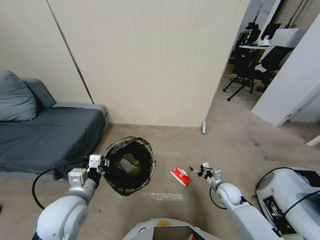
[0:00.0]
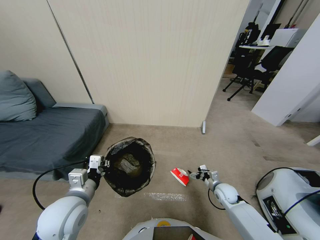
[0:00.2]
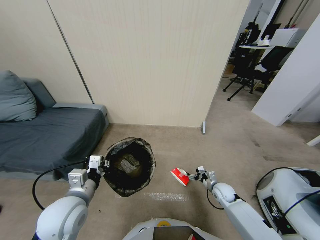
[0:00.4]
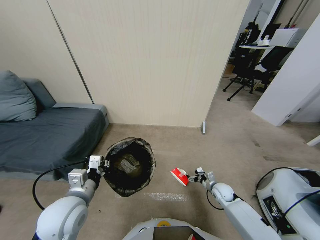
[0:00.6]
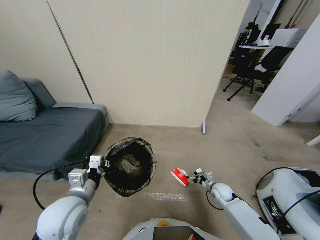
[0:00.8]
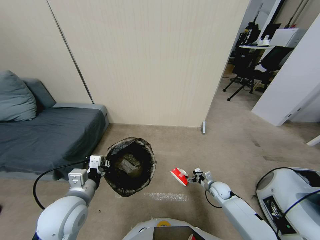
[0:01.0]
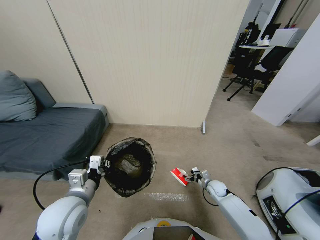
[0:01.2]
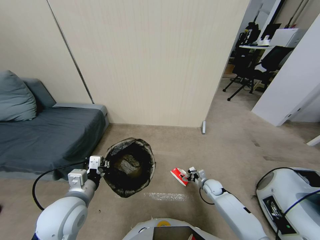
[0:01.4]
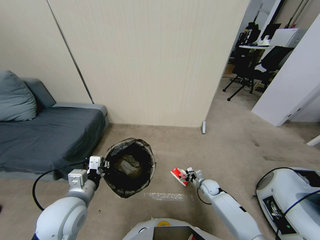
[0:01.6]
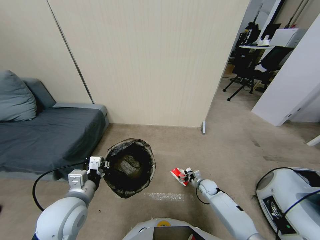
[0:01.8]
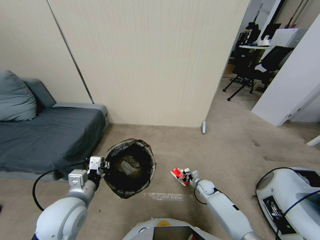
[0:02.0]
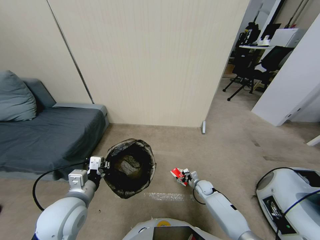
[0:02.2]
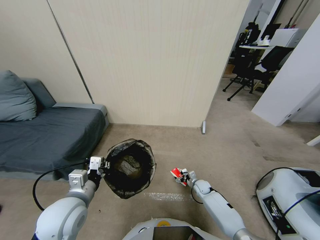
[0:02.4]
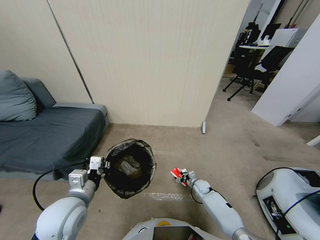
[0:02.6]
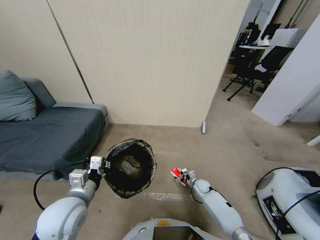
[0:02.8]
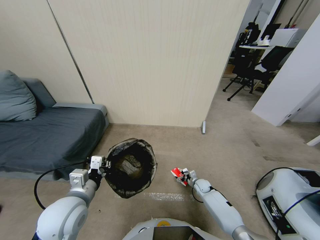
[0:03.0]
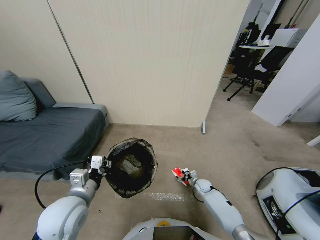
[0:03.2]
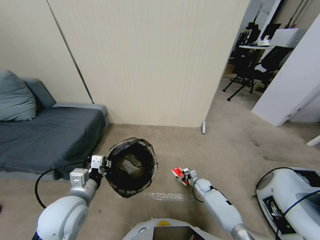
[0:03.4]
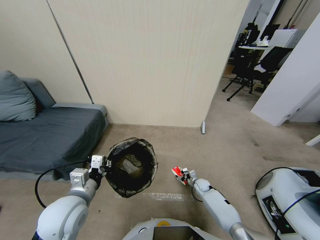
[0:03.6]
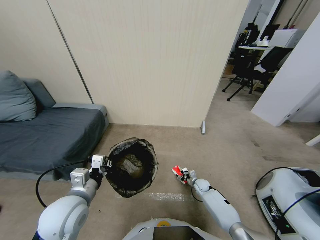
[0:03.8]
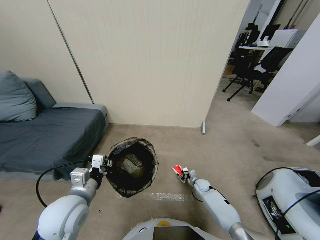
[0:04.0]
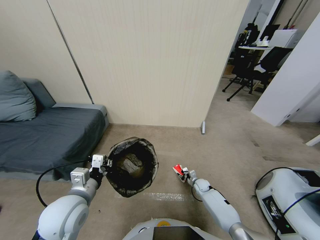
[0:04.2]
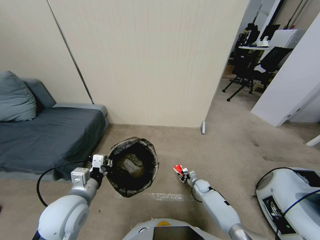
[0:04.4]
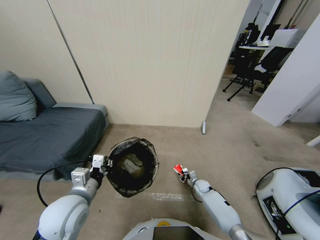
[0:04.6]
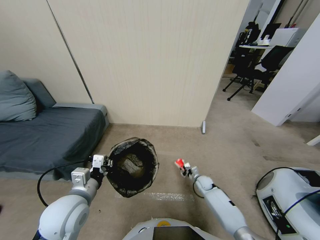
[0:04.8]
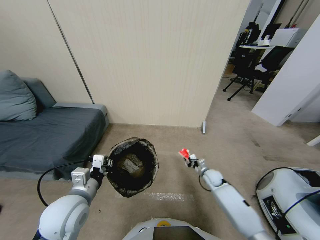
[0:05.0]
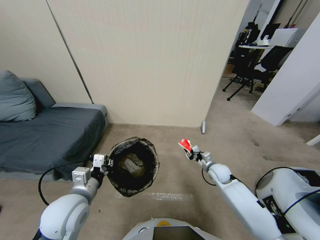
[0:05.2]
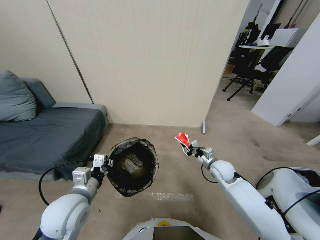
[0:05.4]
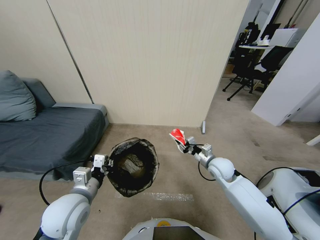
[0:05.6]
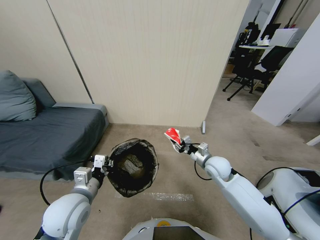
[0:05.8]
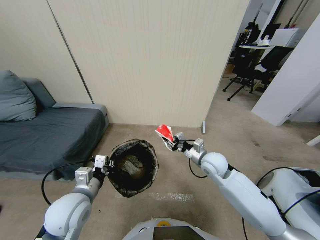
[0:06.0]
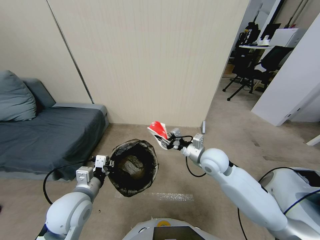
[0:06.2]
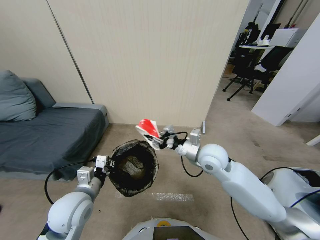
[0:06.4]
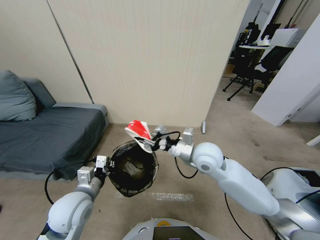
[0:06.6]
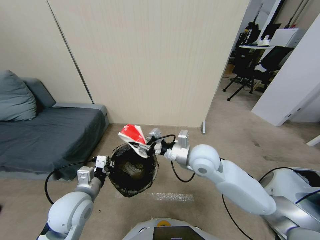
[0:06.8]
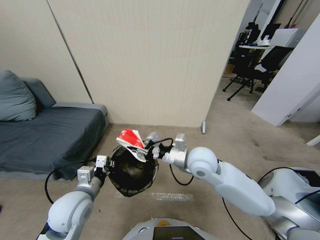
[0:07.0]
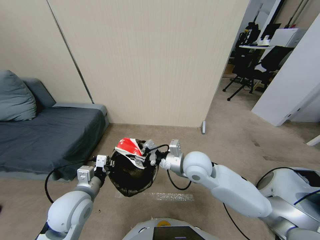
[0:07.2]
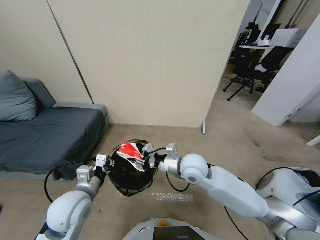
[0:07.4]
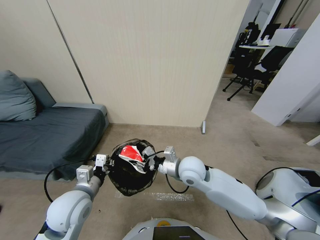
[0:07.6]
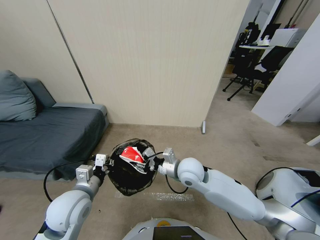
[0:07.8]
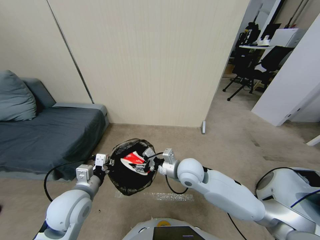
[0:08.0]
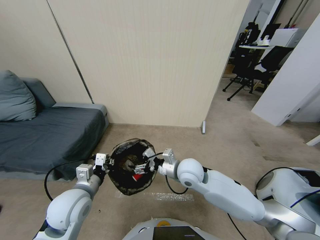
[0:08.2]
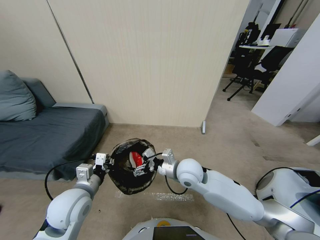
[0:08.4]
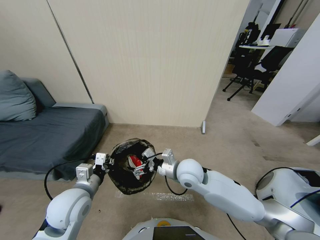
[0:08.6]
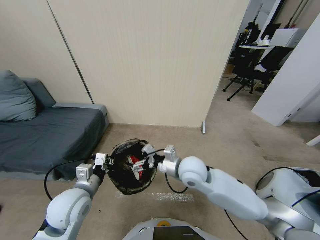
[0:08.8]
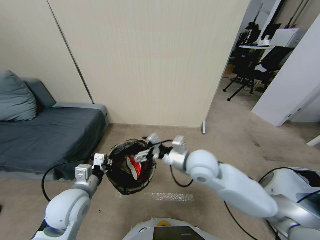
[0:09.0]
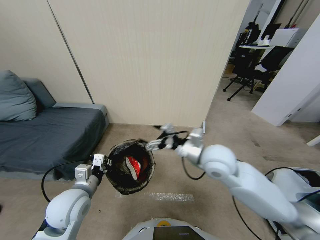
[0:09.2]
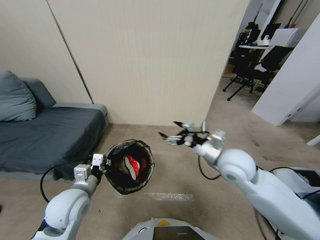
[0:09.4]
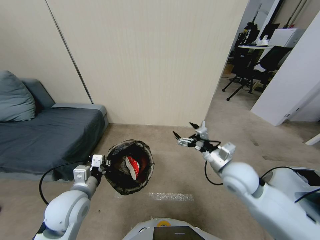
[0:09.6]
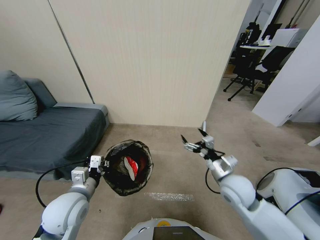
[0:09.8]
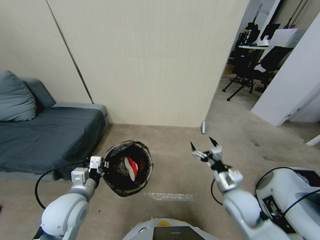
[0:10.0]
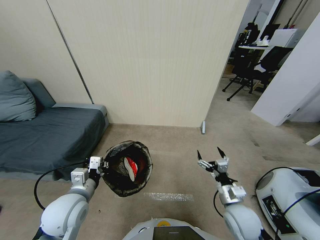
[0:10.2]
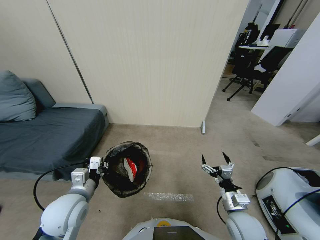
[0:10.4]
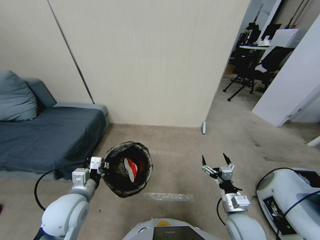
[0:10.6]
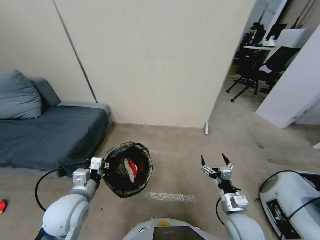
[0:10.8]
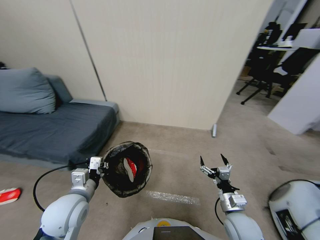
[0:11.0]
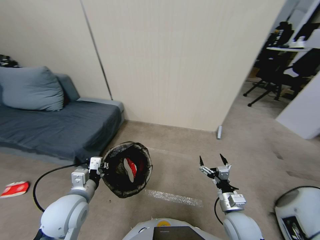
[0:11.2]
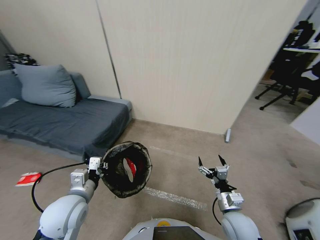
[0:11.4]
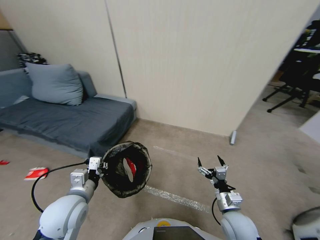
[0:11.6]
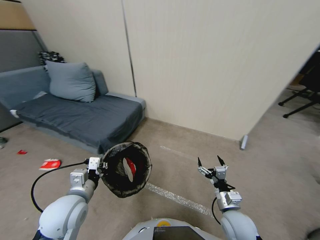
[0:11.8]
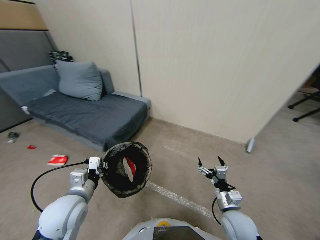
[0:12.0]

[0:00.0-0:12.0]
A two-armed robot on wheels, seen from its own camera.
Task of the whole recording: Pick up the trash bin, then pick up the garbage from the floor and place it into the trash bin.
0:00.0 to 0:01.6: The right gripper is displaced downward and forward by some 10 cm.
0:01.6 to 0:03.0: The grippers move only a little.
0:03.0 to 0:04.4: The right gripper closes up.
0:04.4 to 0:06.0: The right gripper shifts about 35 cm upward.
0:06.0 to 0:07.6: The right gripper travels to the left by roughly 10 cm.
0:07.6 to 0:09.0: The right gripper travels upward by roughly 10 cm, and opens.
0:09.0 to 0:10.4: The right gripper travels downward, backward and to the right by approximately 25 cm.

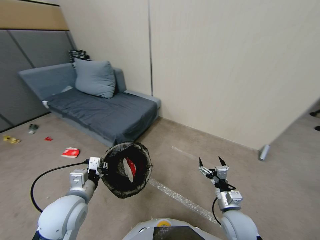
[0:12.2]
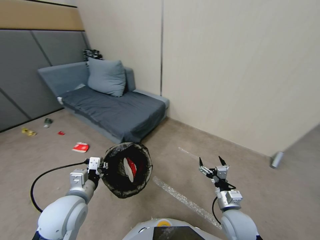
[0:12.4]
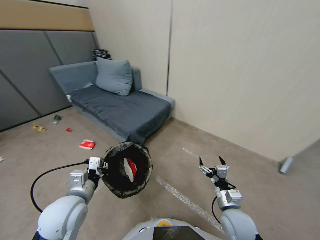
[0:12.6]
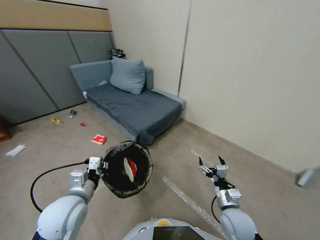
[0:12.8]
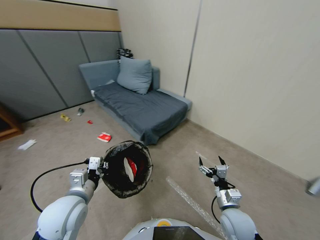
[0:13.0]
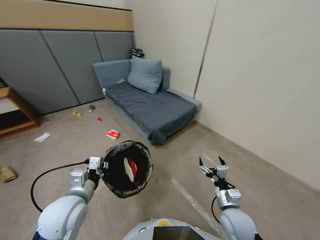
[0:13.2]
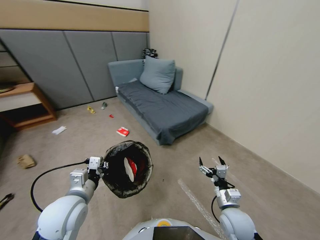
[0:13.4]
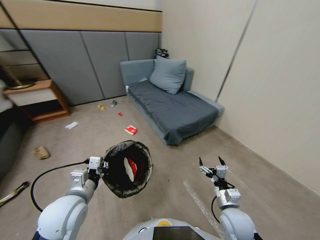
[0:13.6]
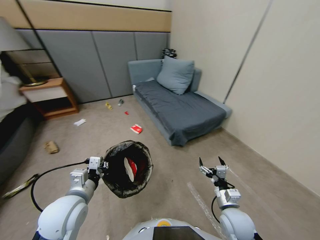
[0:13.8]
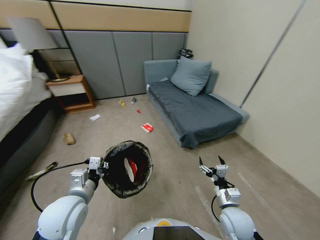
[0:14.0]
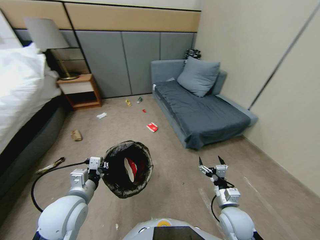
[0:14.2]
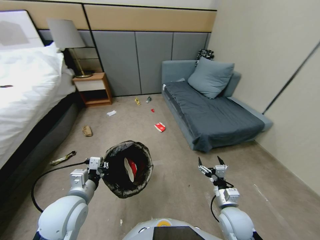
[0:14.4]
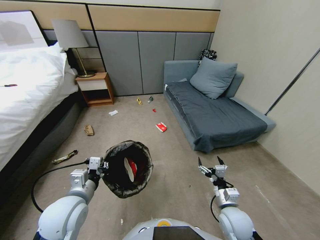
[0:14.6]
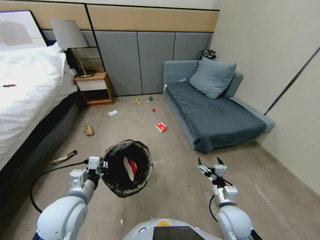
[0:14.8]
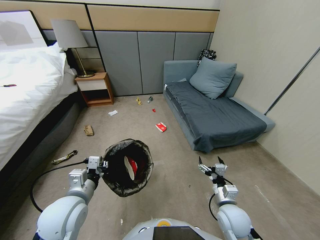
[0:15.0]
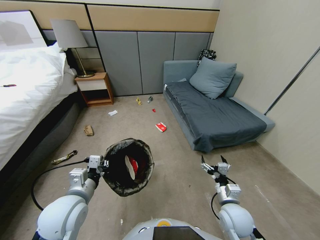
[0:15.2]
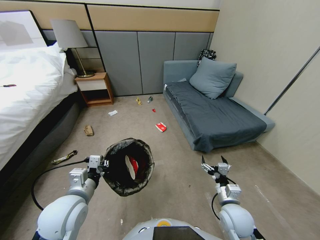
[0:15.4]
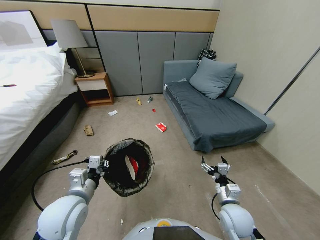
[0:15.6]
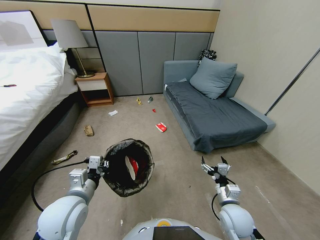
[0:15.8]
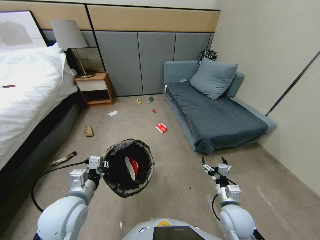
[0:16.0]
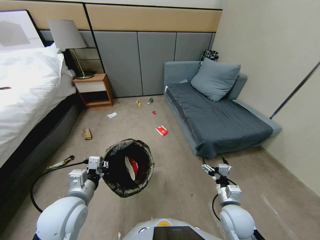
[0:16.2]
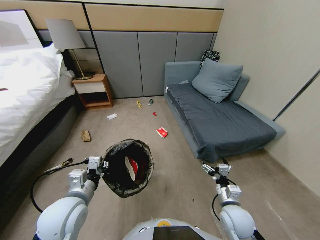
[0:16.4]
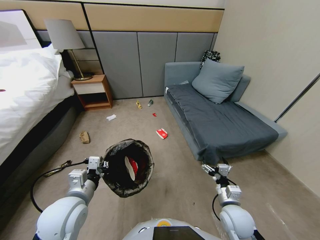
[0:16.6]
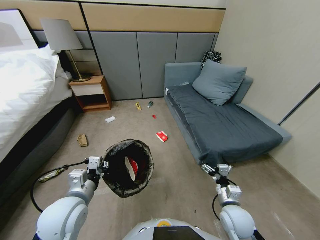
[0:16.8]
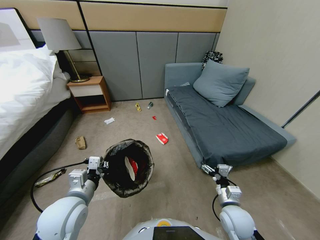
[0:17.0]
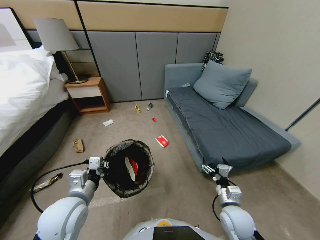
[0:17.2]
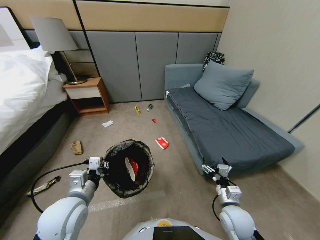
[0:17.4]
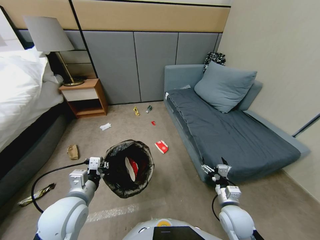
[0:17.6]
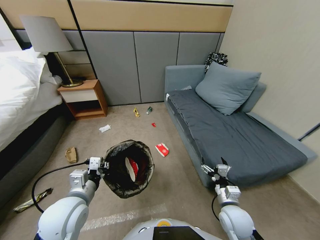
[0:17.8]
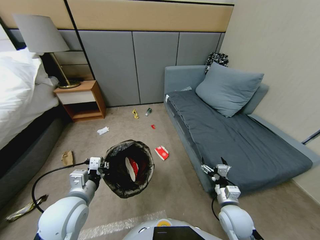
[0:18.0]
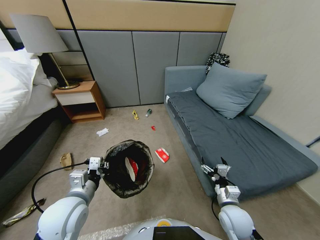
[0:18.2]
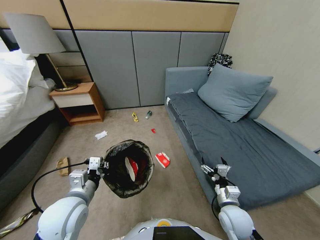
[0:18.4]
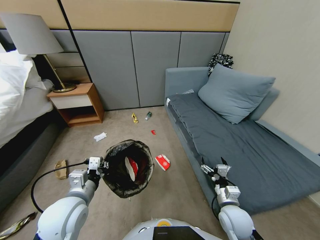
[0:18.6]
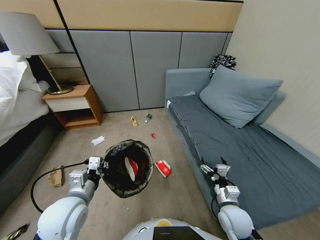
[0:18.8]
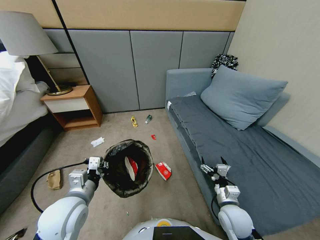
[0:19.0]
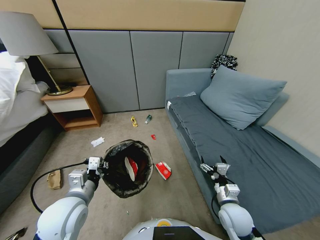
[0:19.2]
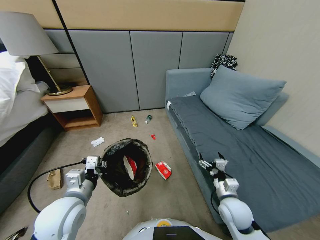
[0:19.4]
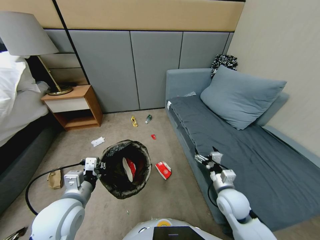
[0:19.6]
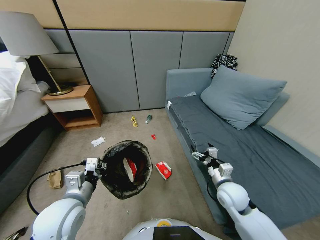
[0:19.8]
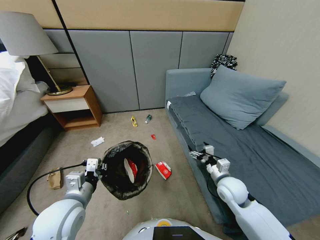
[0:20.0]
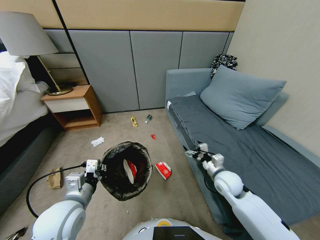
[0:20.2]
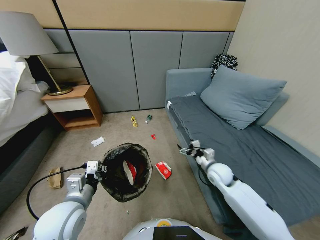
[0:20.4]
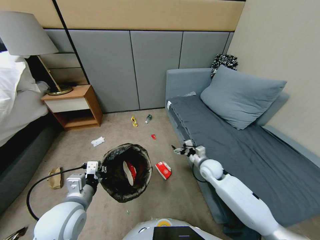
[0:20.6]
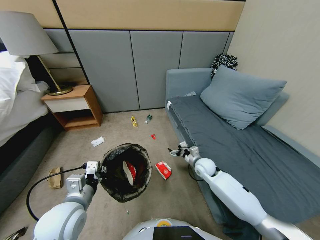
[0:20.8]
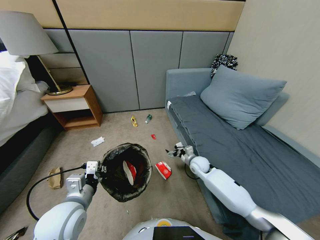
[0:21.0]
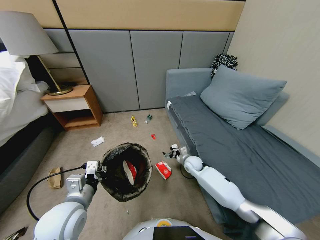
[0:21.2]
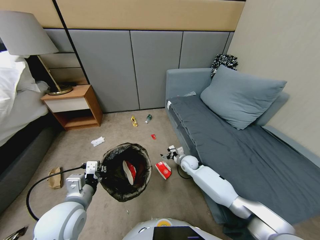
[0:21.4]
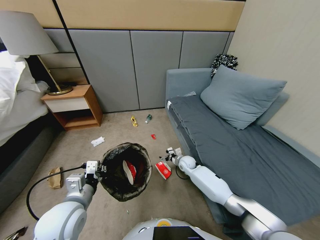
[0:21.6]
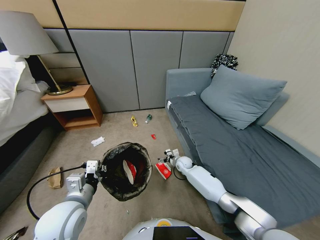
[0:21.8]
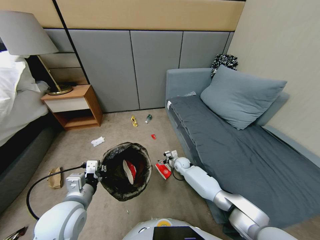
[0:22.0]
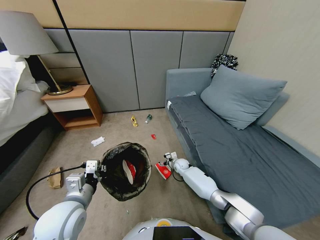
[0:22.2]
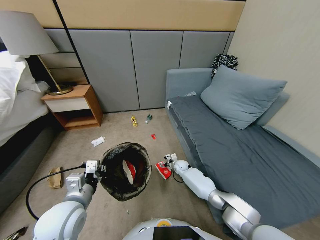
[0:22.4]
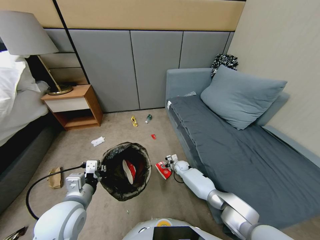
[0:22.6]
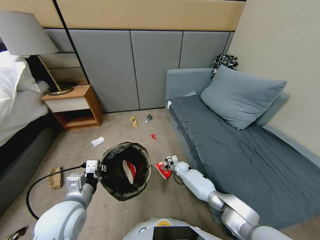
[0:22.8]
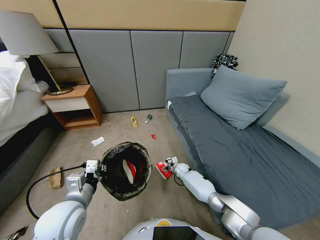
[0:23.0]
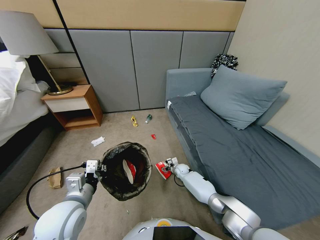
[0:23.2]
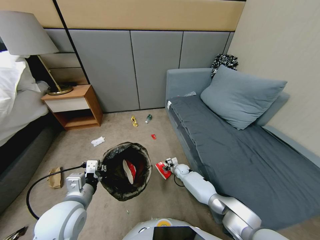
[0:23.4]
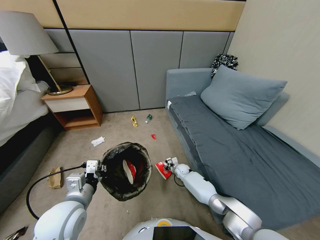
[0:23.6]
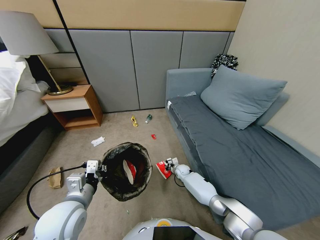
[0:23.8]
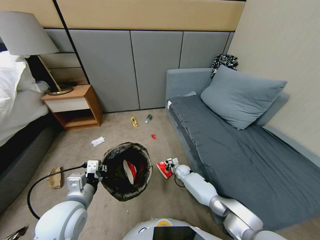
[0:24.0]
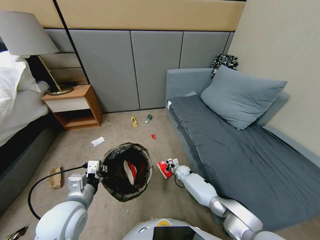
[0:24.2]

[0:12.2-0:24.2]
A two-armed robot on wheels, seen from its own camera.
Task of the whole recording: Pick up the trash bin, then pick up the garbage from the floor and place it into the trash bin.
0:15.2 to 0:16.6: Both grippers stay about where they are.
0:18.2 to 0:19.8: The right gripper travels forward by approximately 10 cm.
0:19.8 to 0:21.2: The right gripper goes approximately 25 cm forward, downward and to the left.
0:21.2 to 0:22.6: The right gripper goes roughly 10 cm downward.
0:22.6 to 0:24.2: The right gripper closes up.
